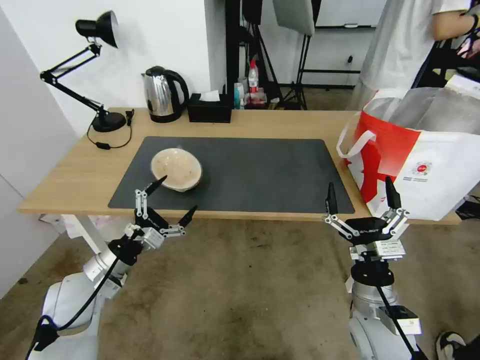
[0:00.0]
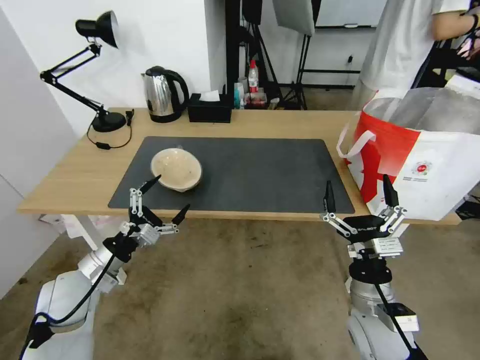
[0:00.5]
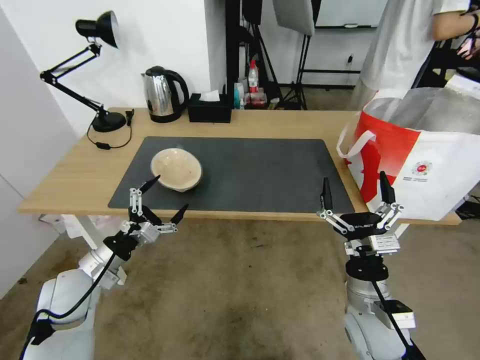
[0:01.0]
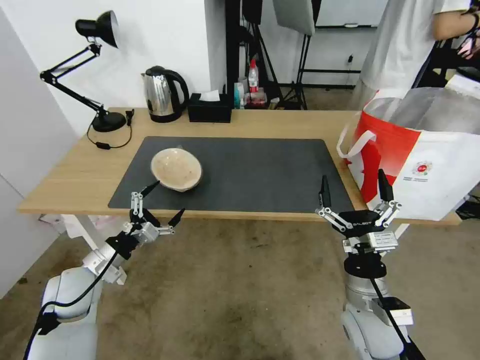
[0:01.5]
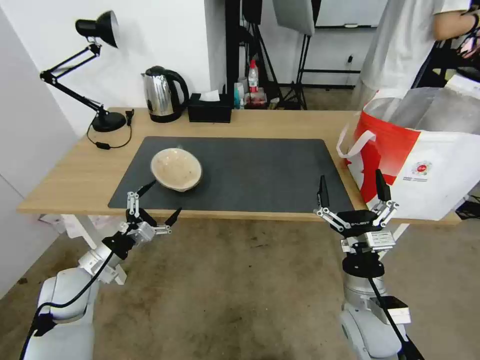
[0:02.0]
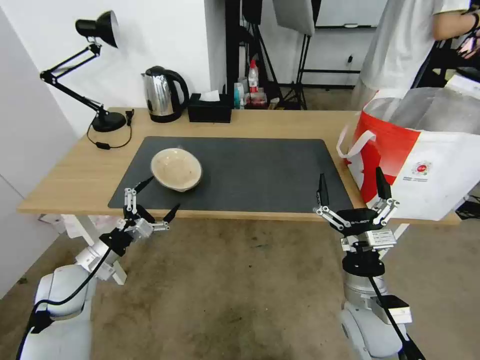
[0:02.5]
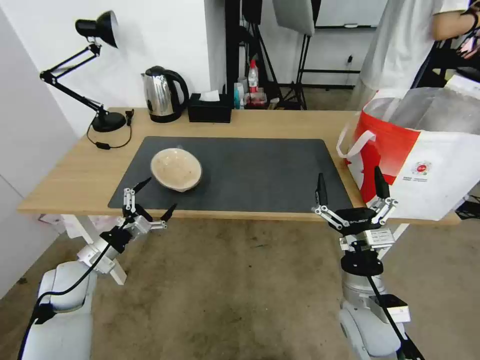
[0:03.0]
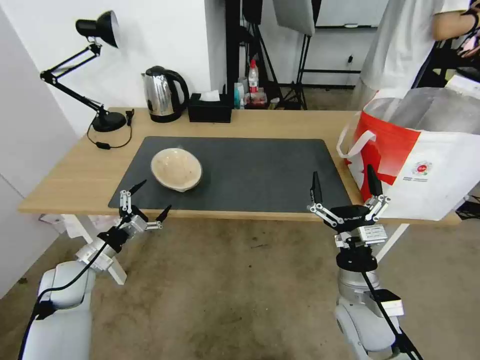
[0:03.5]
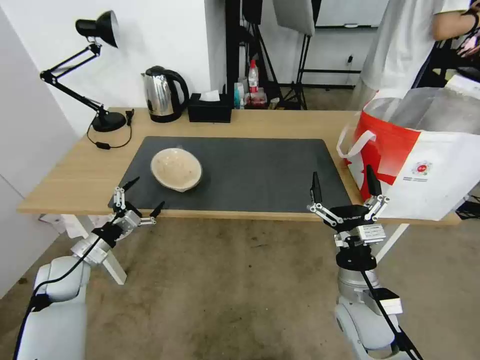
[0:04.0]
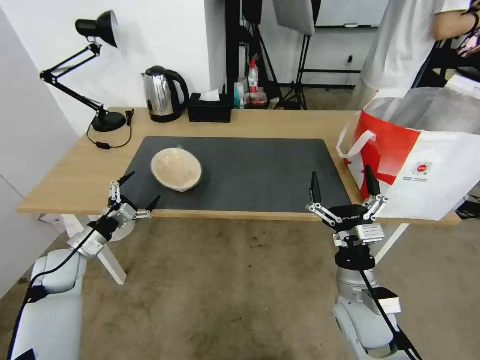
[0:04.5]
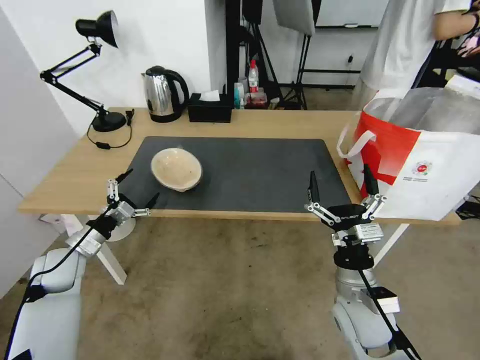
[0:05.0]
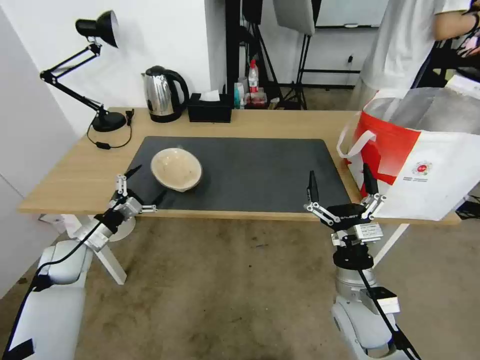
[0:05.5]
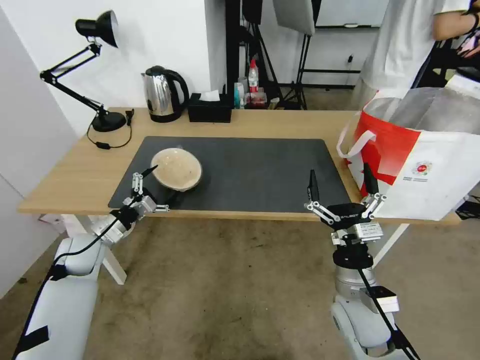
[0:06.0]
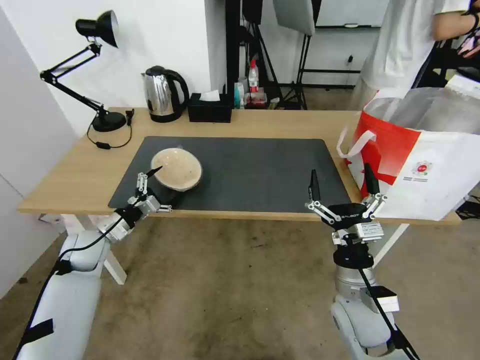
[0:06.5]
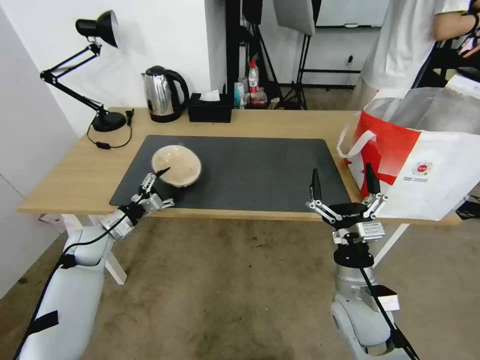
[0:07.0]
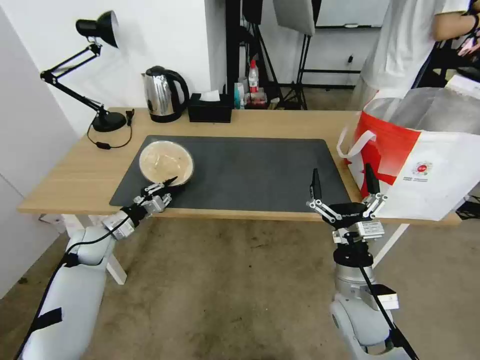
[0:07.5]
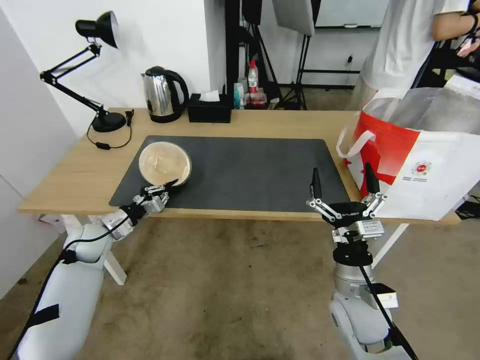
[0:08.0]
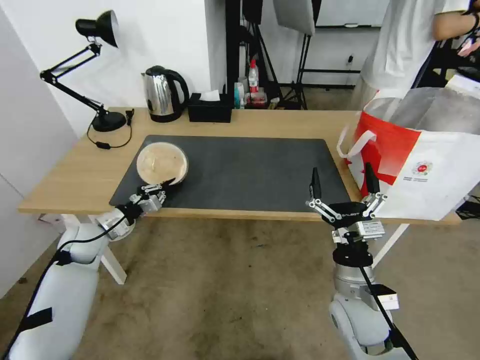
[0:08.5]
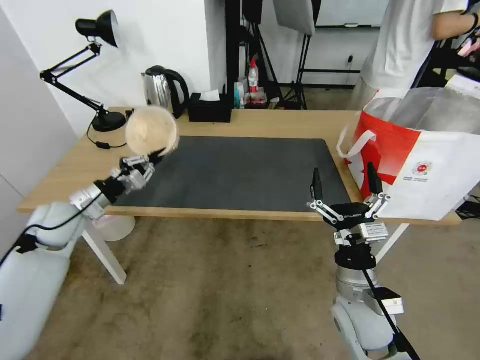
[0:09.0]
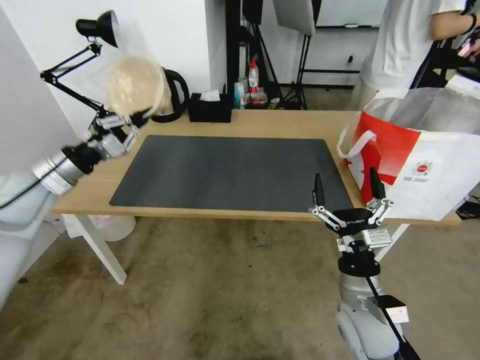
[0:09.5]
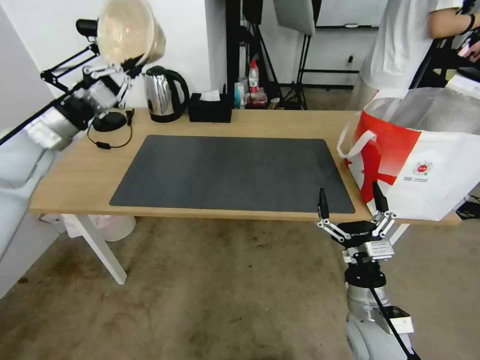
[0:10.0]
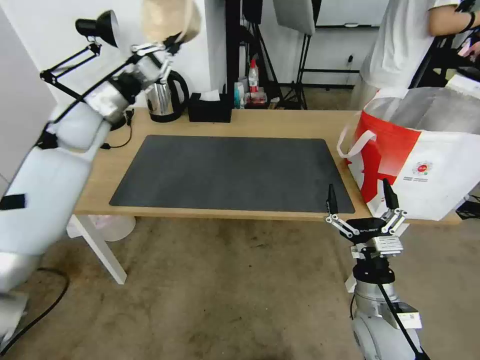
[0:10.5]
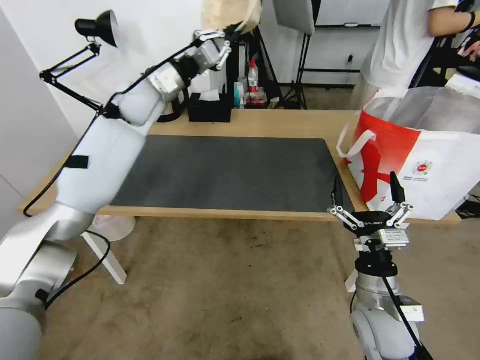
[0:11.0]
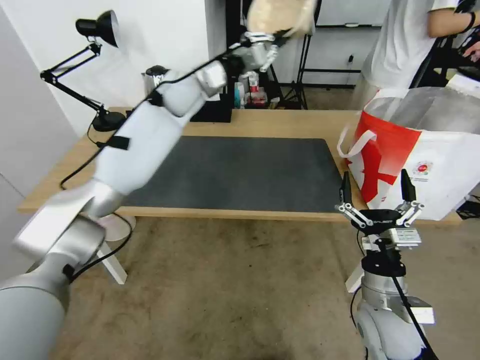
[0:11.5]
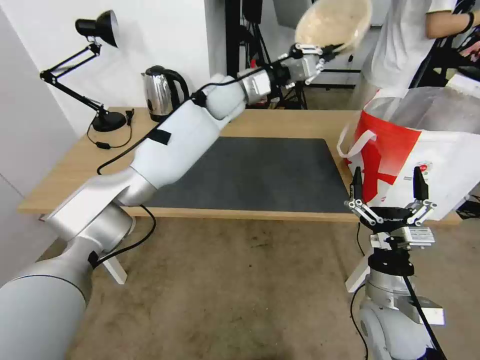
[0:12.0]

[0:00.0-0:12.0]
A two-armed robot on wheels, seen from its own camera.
Task of the whole recording: Pick up the trash from the table and place it into the takeout bag.
0:00.0 to 0:02.0: The grippers stay close to where they were, moving slightly.
0:02.0 to 0:04.0: The left gripper changes place by approximately 5 cm.
0:04.0 to 0:06.0: There are only small adjustments of the grippers.
0:06.0 to 0:08.0: The left gripper closes up.
0:08.0 to 0:10.0: The left gripper is displaced upward by approximately 30 cm.
0:10.0 to 0:12.0: The left gripper shifts approximately 40 cm to the right and forward.

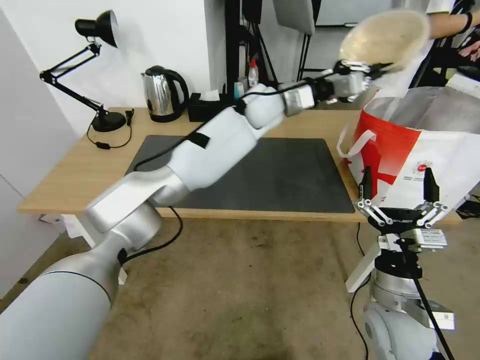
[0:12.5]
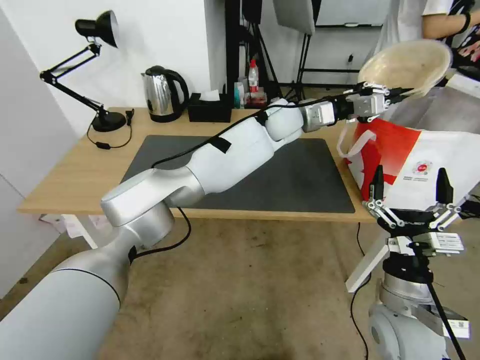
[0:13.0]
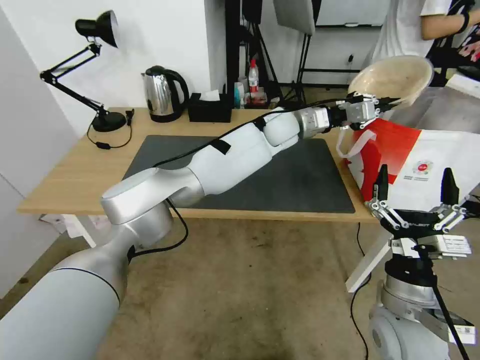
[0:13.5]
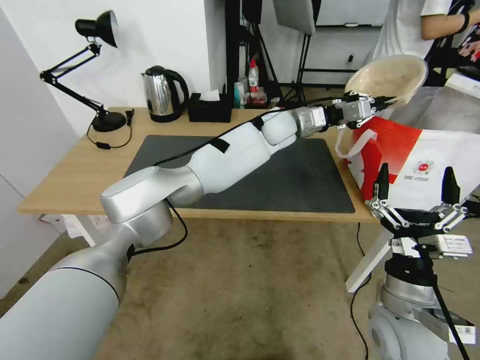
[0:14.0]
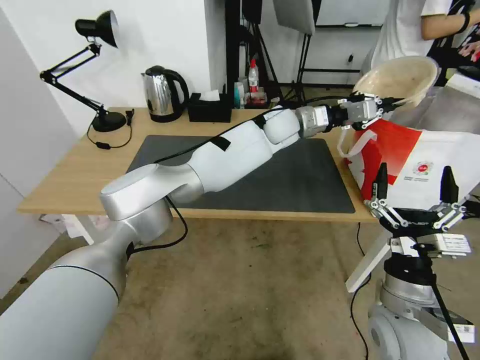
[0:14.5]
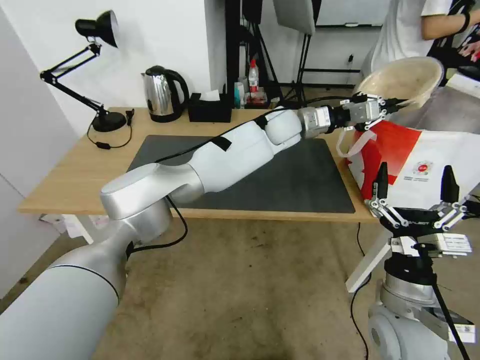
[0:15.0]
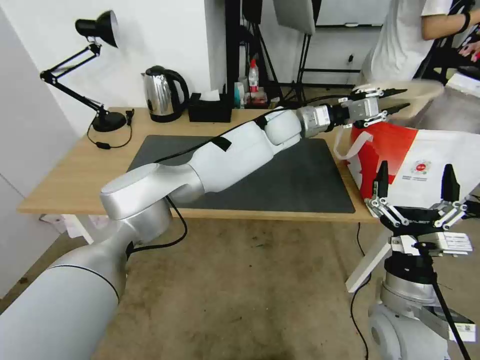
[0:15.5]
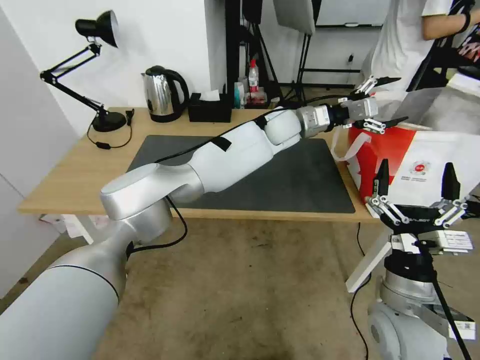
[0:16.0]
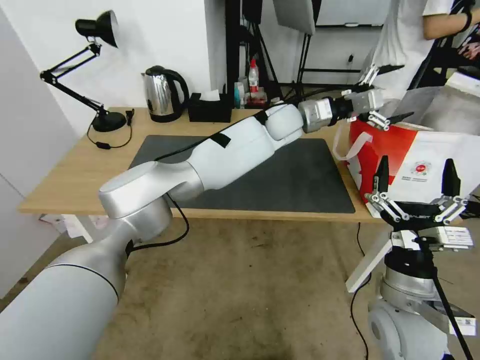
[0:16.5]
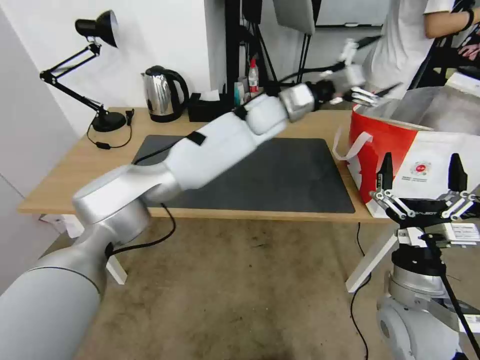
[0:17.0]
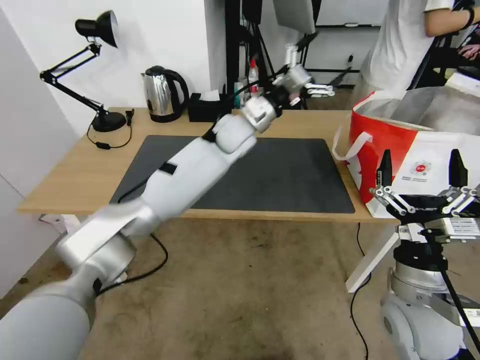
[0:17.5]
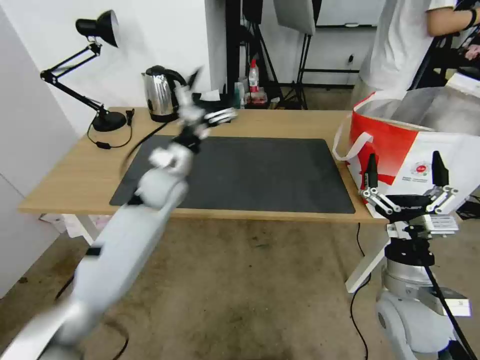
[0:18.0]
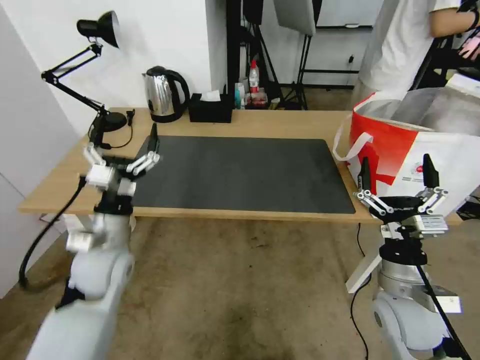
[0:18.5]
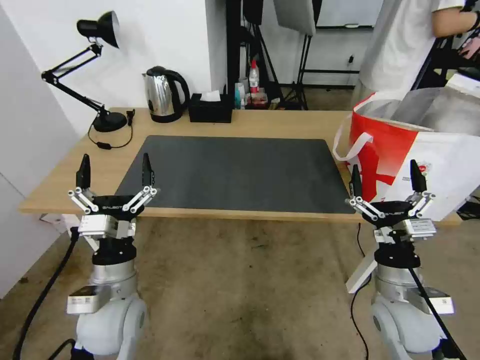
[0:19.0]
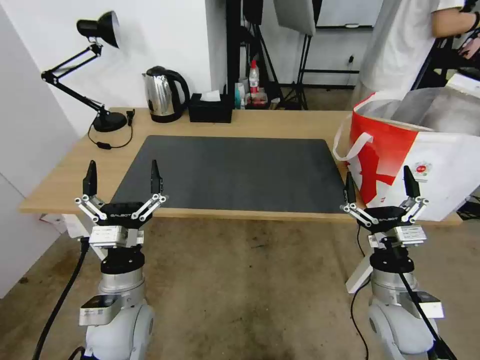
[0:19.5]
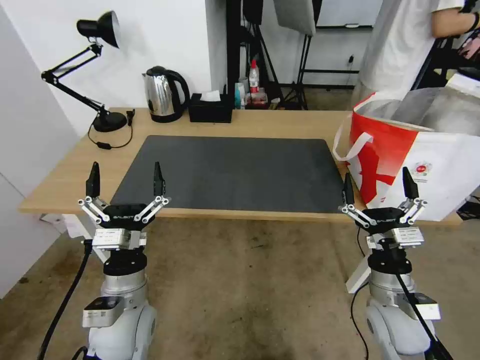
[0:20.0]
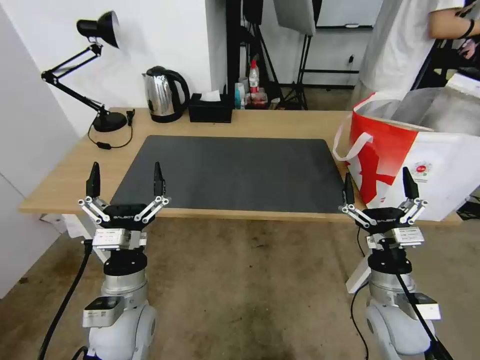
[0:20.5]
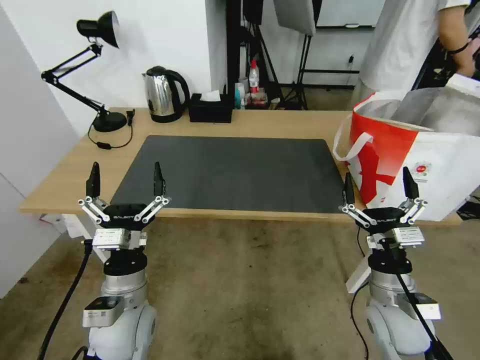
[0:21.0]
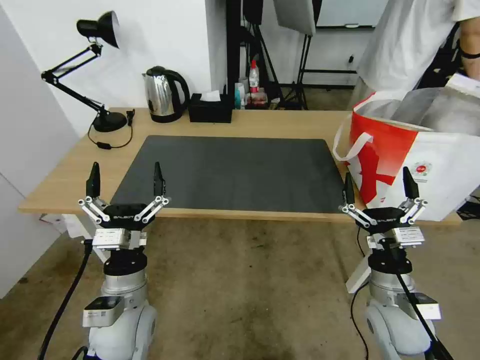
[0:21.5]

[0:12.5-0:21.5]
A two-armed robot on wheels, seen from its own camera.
Task of the whole recording: Pick up the trash from the table and place it into the takeout bag.
0:12.5 to 0:14.5: The left gripper heads downward and to the right, covering some 5 cm.
0:14.5 to 0:17.0: The left gripper changes place by some 5 cm, and opens.
0:17.0 to 0:19.5: The right gripper heads downward, covering some 5 cm. The left gripper goes approximately 50 cm backward, to the left and downward.
0:19.5 to 0:21.5: Both grippers stay put.

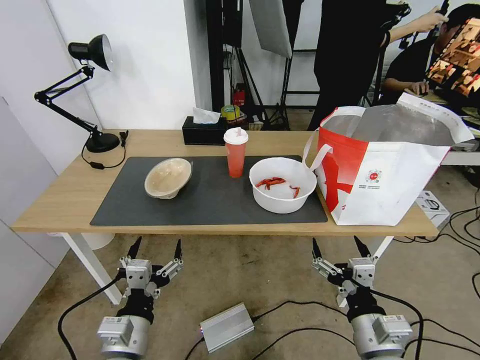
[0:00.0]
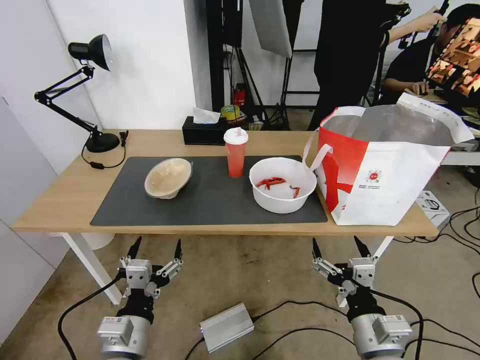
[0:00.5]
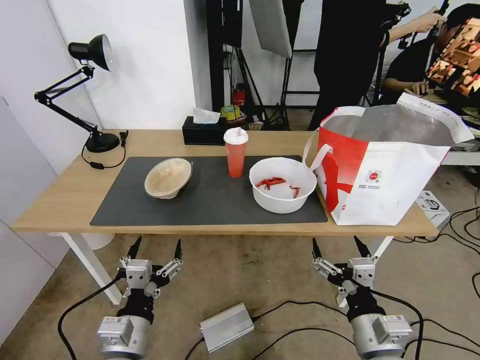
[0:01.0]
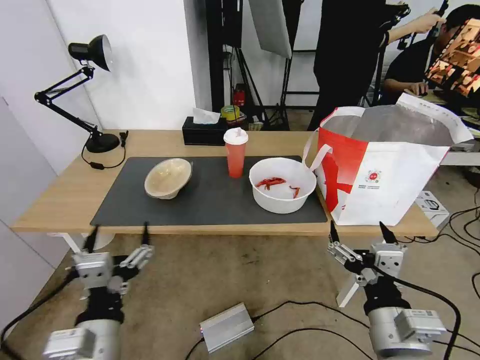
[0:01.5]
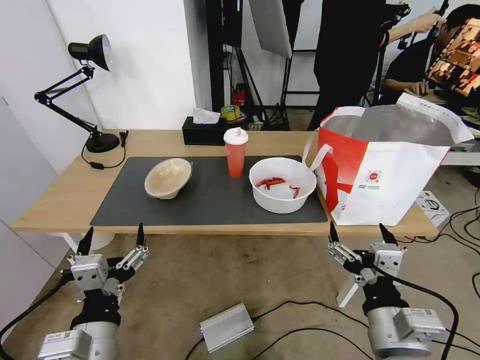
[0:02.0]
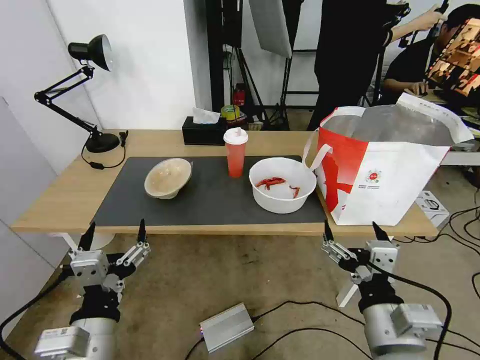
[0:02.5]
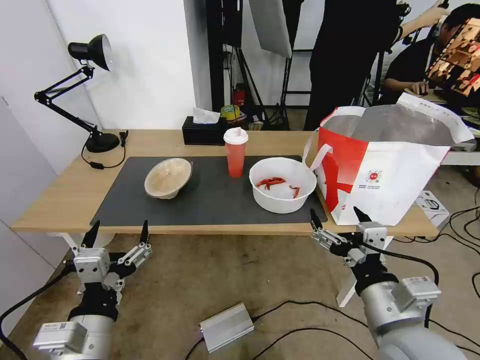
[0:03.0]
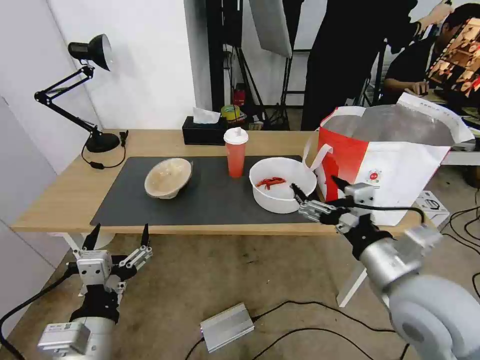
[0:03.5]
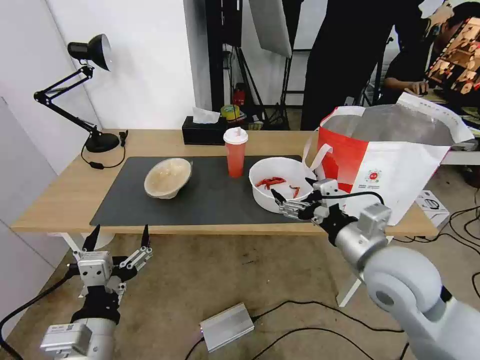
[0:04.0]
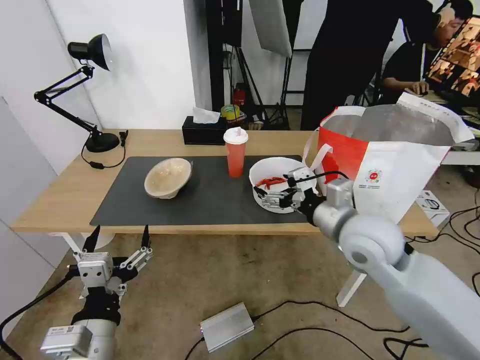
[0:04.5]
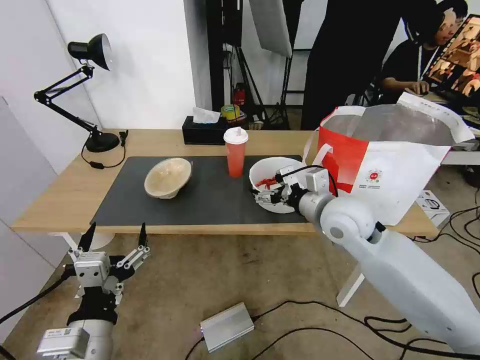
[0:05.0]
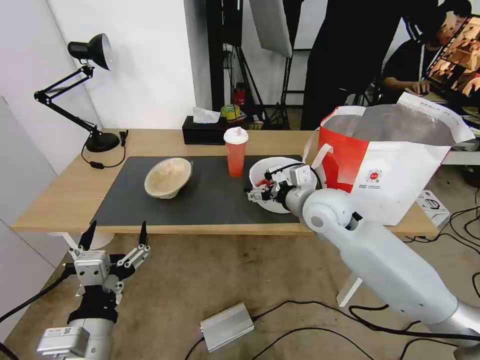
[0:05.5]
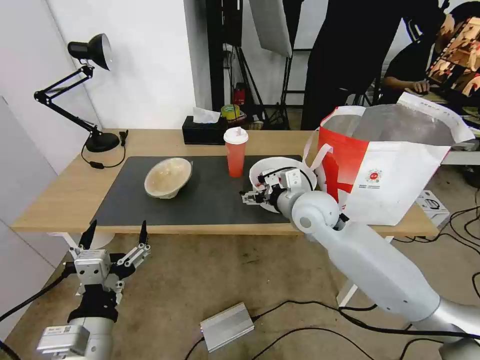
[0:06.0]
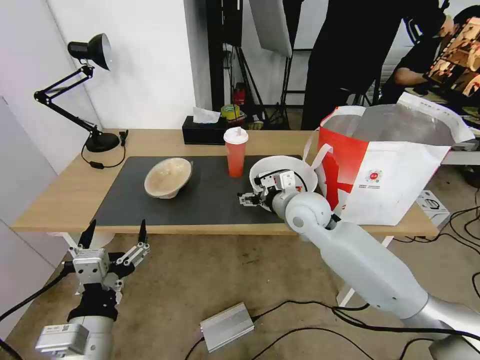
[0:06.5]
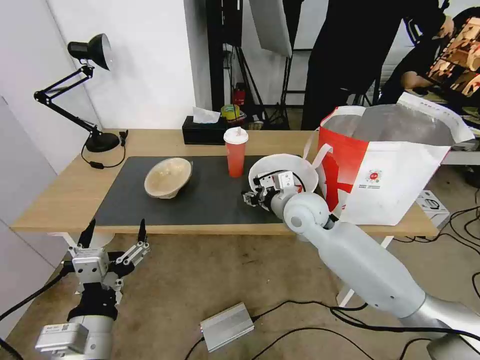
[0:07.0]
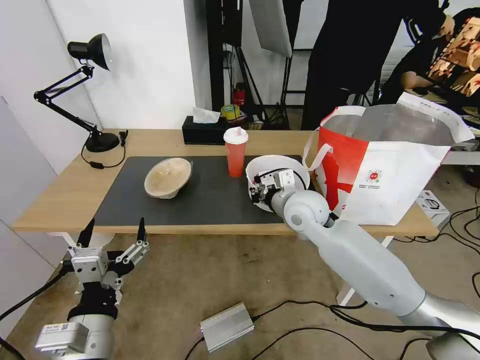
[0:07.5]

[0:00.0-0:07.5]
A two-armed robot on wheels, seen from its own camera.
Task of the whole recording: Pick up the trash from the table and place it into the takeout bag.
0:02.0 to 0:04.0: The right gripper moves forward and upward, about 15 cm.
0:04.0 to 0:05.5: The right gripper goes roughly 15 cm forward.
0:05.5 to 0:07.5: The right gripper closes.
